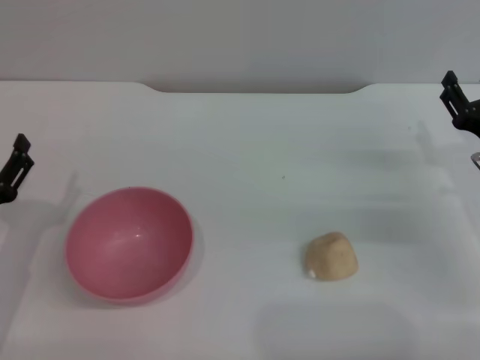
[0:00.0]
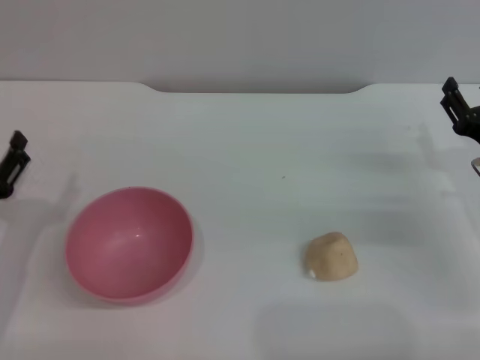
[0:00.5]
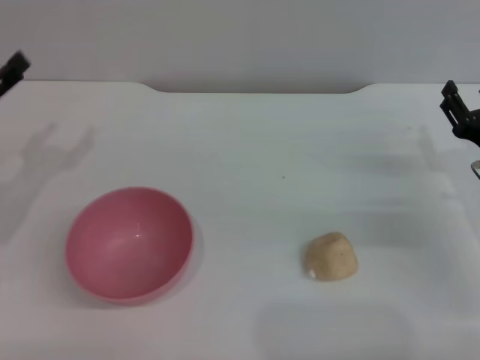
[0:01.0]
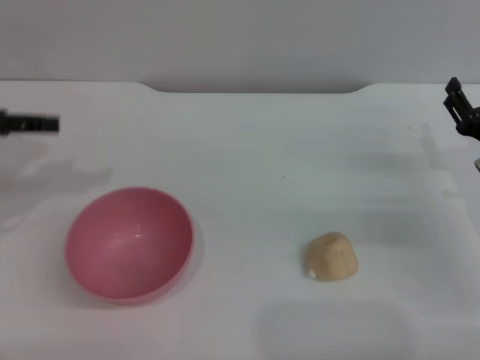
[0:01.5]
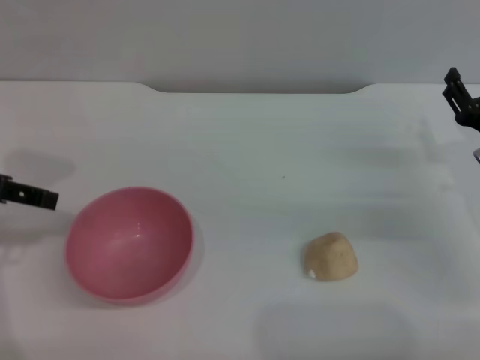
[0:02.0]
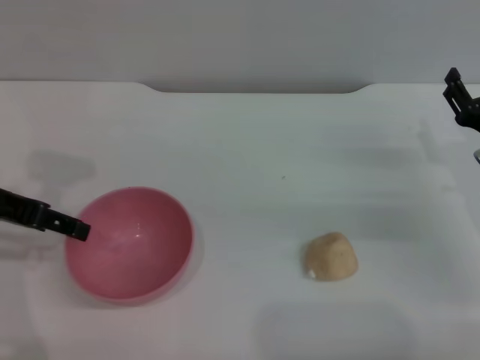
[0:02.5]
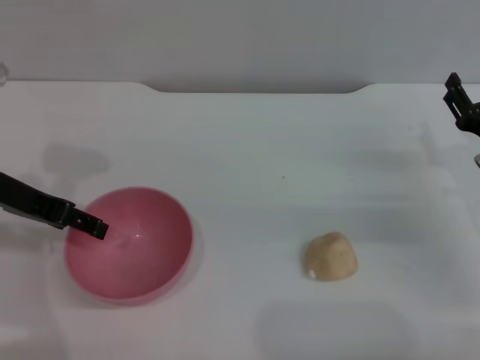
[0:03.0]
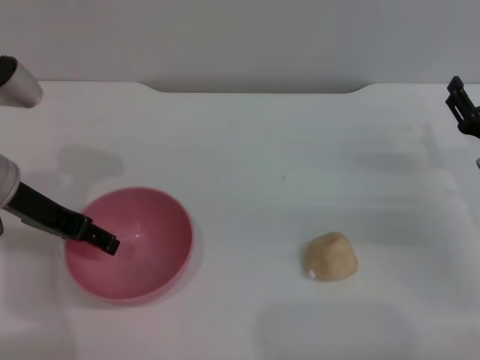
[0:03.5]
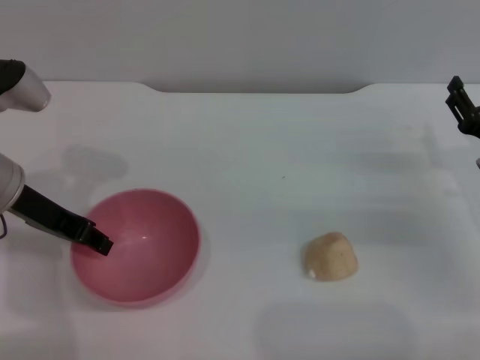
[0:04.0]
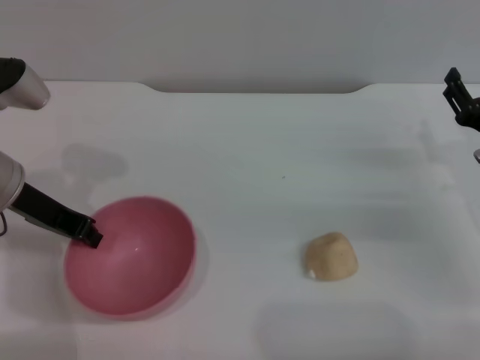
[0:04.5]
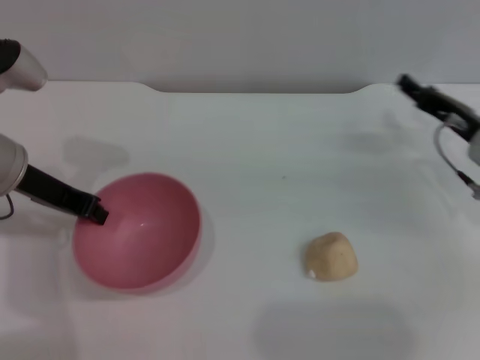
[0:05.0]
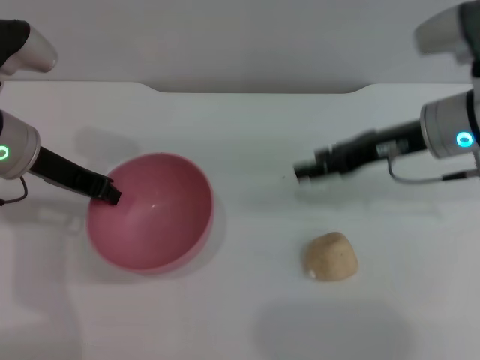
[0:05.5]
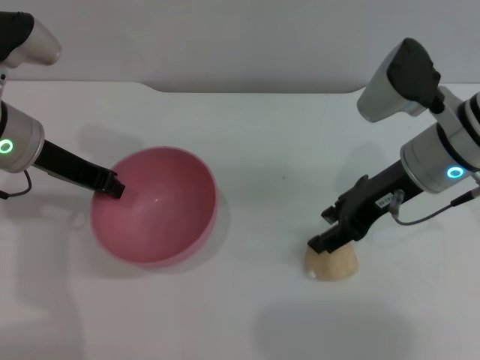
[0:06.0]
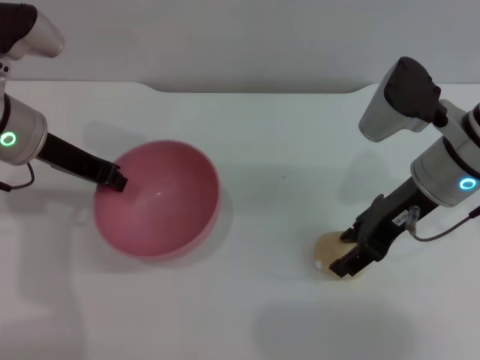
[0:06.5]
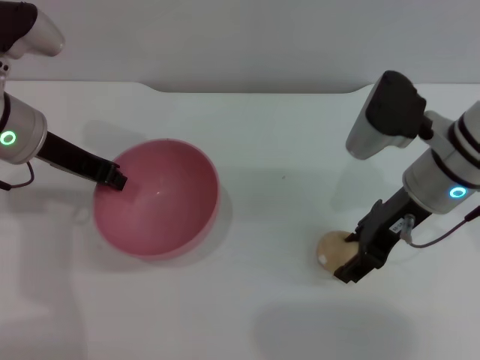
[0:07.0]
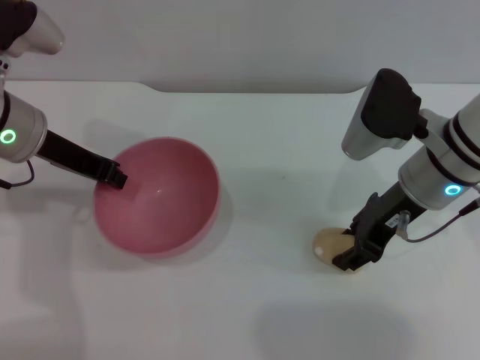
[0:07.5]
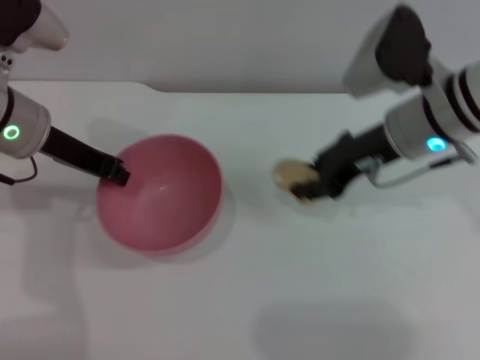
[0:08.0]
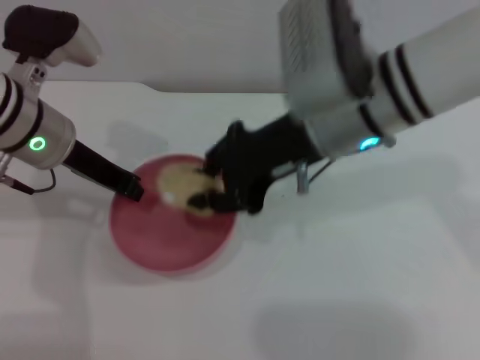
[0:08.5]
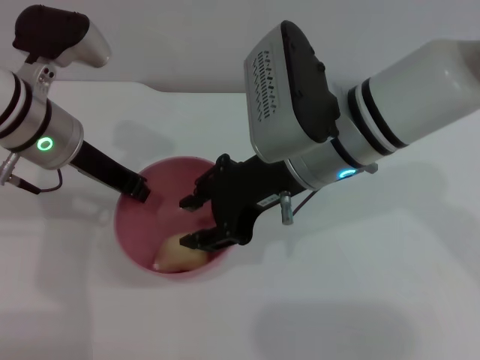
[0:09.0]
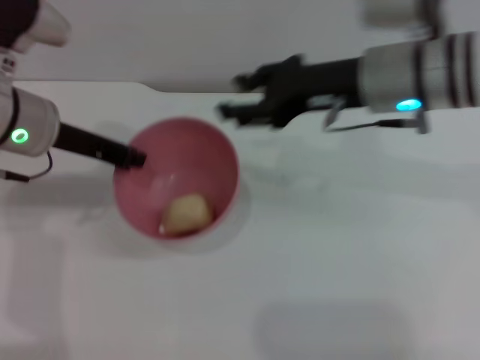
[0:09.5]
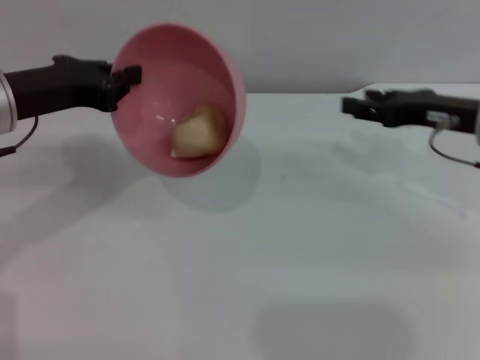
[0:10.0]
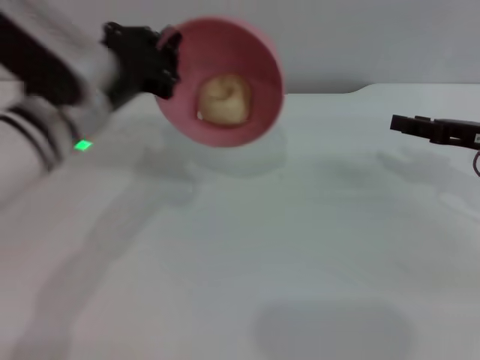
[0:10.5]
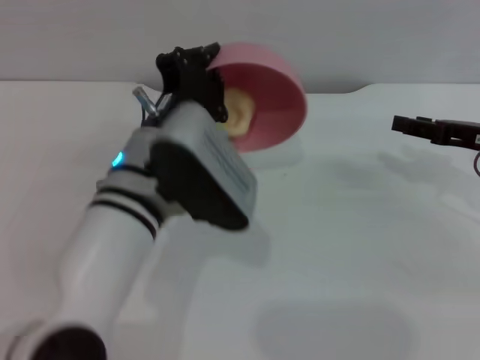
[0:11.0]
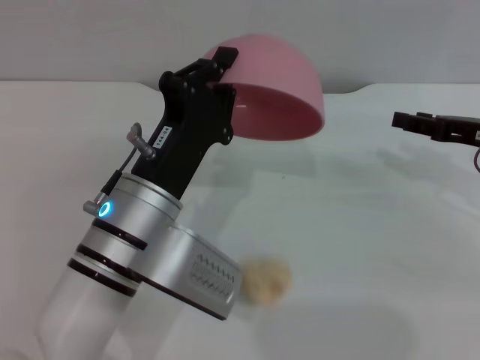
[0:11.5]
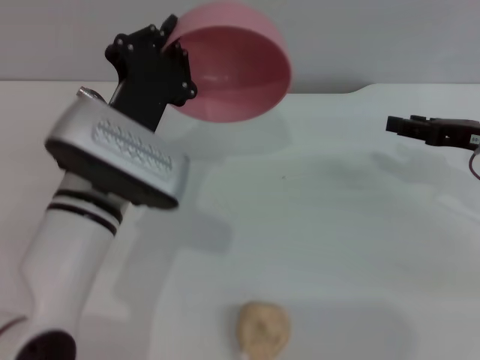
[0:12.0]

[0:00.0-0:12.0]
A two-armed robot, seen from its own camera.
Task of the whole recording: put the egg yolk pastry into the pink bowl and pour it out repeatedly.
Step, 0:00.0 to 0:05.0: Pick up the bowl with the left gripper.
Step, 0:05.5 to 0:07.5: Pick up the egg yolk pastry with the right gripper.
Step, 0:08.0 to 0:09.0: Place the egg yolk pastry into the bowl.
Step, 0:09.5 to 0:11.5: Pour the egg yolk pastry out of bowl.
0:00.0 to 0:02.0: The left gripper moves upward, approximately 20 cm.
0:02.0 to 0:04.0: The left gripper goes about 10 cm downward and to the right, and closes up.
0:04.0 to 0:06.0: The left gripper closes its fingers. Meanwhile the right gripper travels to the left, upward and forward by some 15 cm.
0:06.0 to 0:08.0: The right gripper closes its fingers.
0:08.0 to 0:10.0: The right gripper goes roughly 10 cm to the right, and opens its fingers.
0:10.0 to 0:12.0: The left gripper moves to the right and downward, about 15 cm; the right gripper shifts by approximately 5 cm.

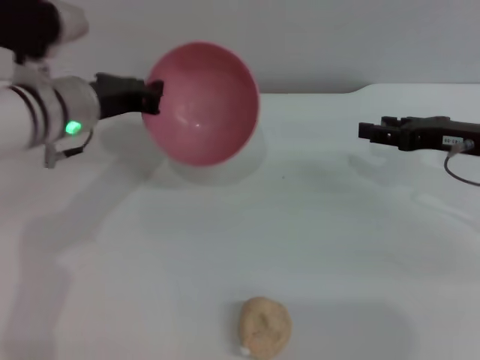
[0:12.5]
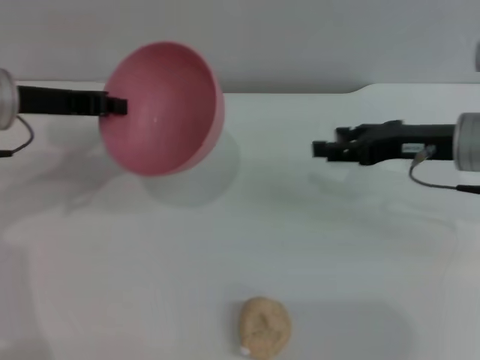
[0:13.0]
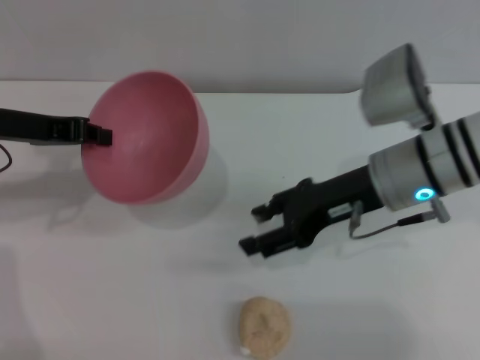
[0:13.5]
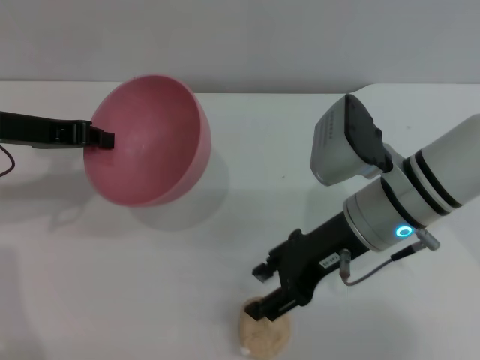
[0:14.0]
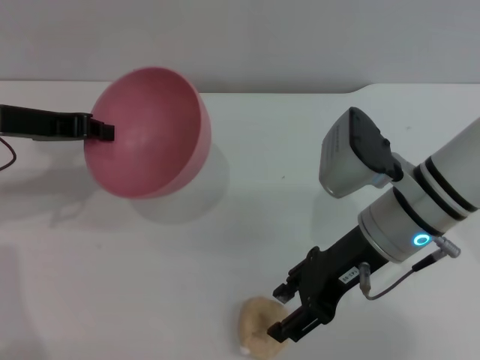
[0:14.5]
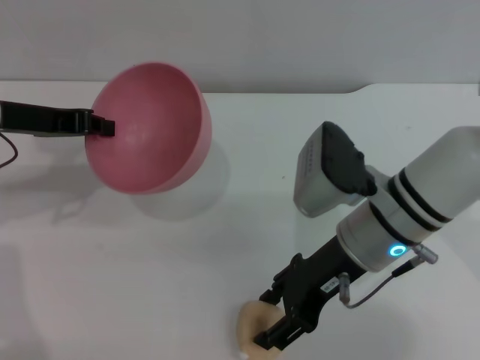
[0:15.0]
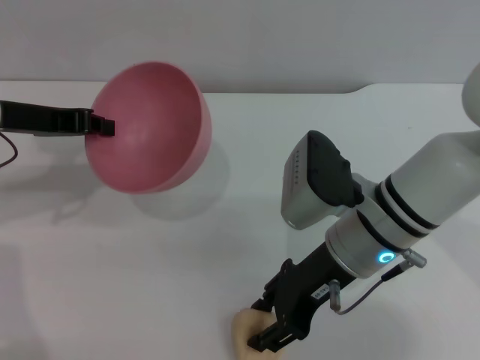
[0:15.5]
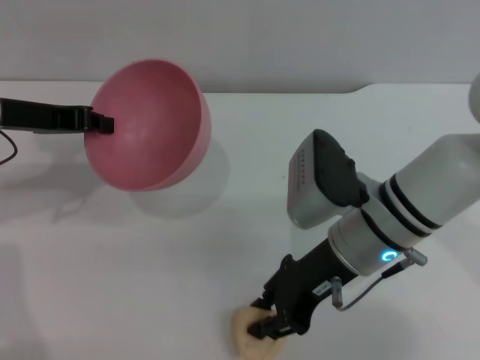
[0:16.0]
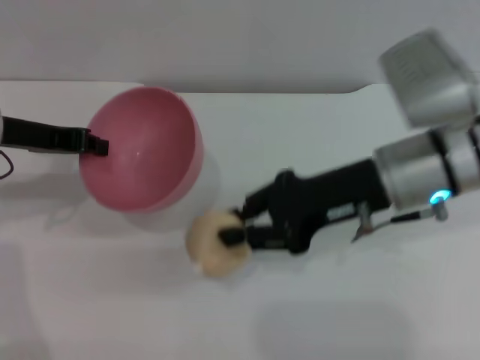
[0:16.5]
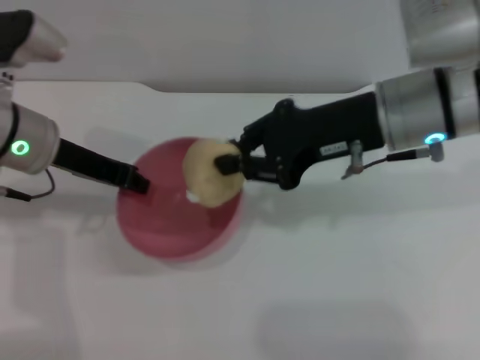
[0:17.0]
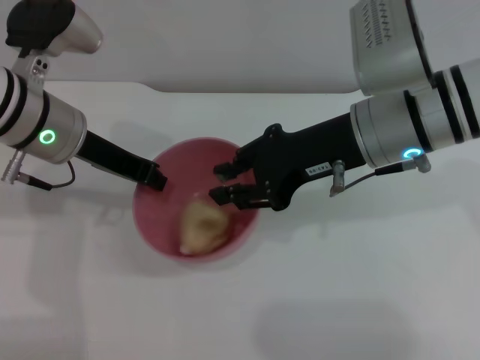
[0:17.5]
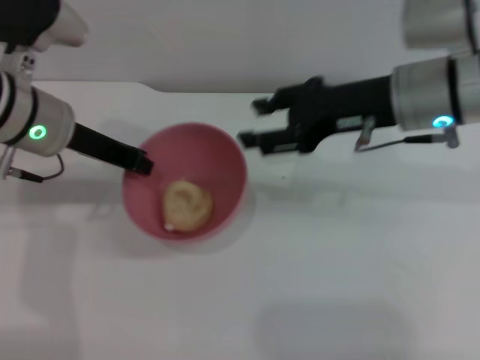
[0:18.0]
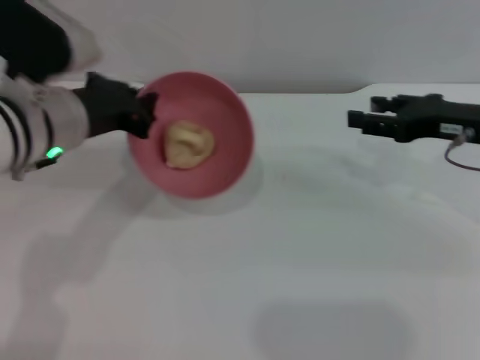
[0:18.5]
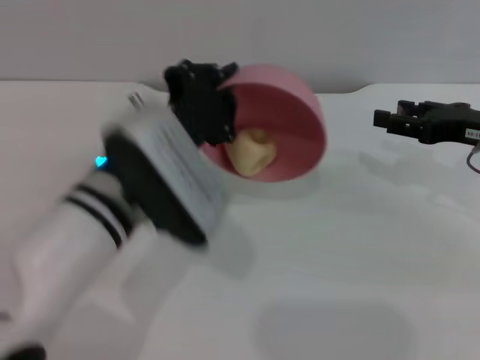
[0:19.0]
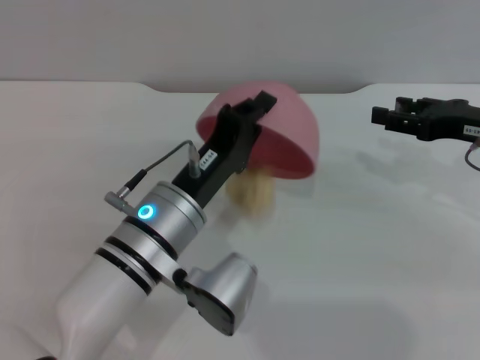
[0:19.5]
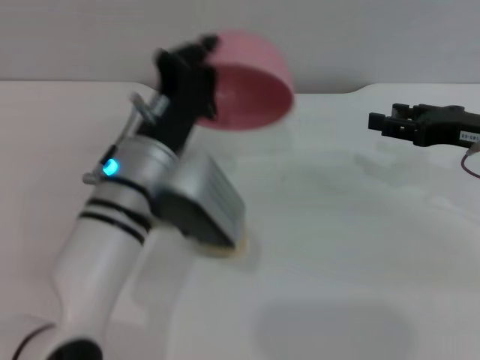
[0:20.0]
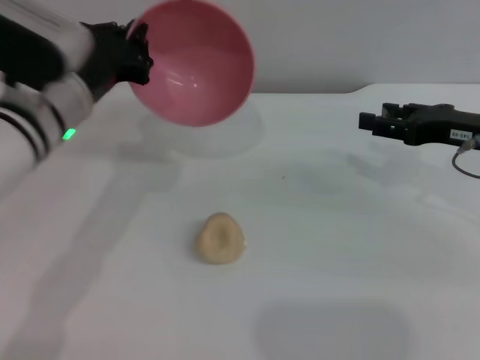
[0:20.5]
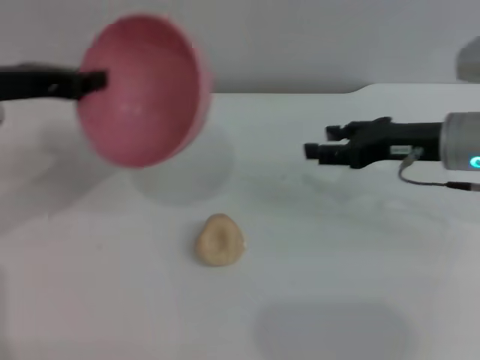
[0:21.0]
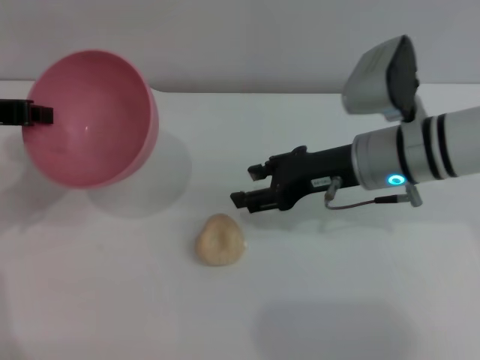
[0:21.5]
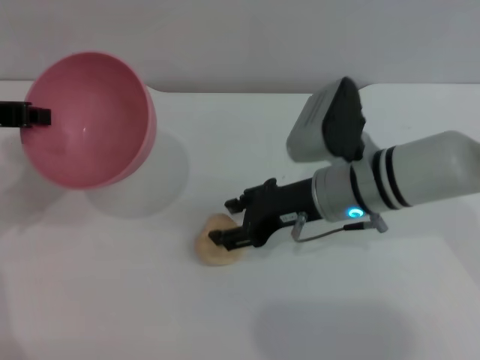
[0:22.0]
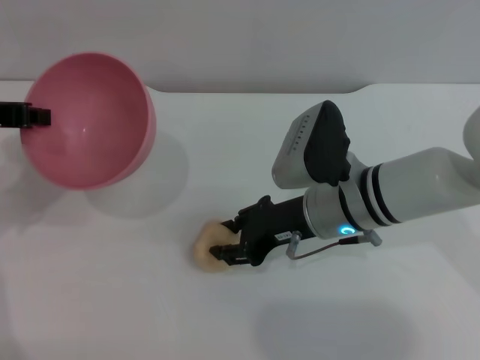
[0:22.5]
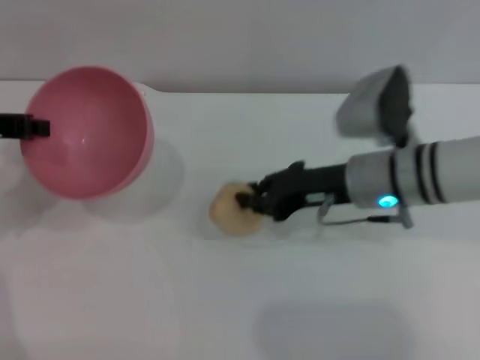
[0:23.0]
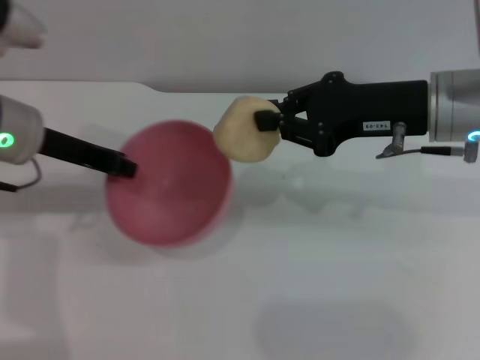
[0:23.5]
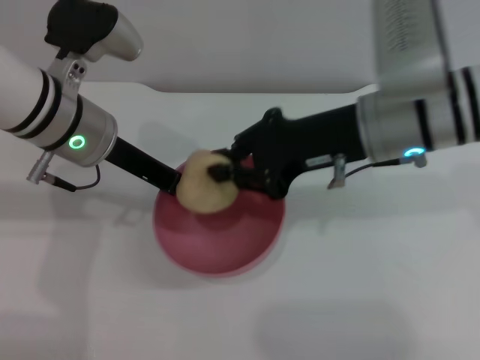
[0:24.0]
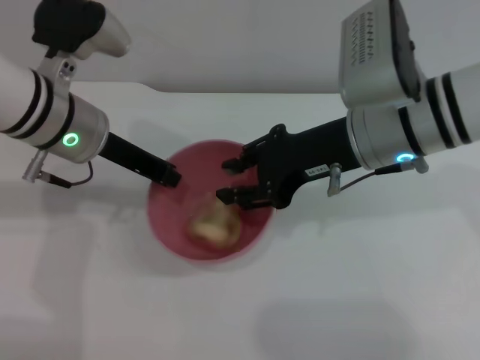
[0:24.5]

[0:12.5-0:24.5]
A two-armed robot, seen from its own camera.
Task of the whole recording: put the egg yolk pastry into the pink bowl and pour it out repeatedly.
Step, 0:12.5 to 0:16.0: Pick up the egg yolk pastry with the right gripper.
Step, 0:16.5 to 0:17.5: Place the egg yolk pastry into the bowl.
Step, 0:18.0 to 0:20.0: Pour the egg yolk pastry out of bowl.
Step, 0:20.5 to 0:23.0: Pick up the egg yolk pastry with the right gripper.
0:12.5 to 0:14.5: The right gripper moves to the left, about 15 cm, while the left gripper travels to the left by roughly 10 cm.
0:14.5 to 0:16.5: The right gripper closes up.
0:16.5 to 0:18.5: Both grippers travel together to the right, about 10 cm. The right gripper opens.
0:18.5 to 0:20.5: The left gripper goes to the right and returns, about 10 cm each way.
0:20.5 to 0:22.5: Both grippers move to the left, approximately 15 cm.
0:22.5 to 0:24.5: The left gripper is displaced to the right by about 15 cm. Meanwhile the right gripper goes about 10 cm upward, and closes.

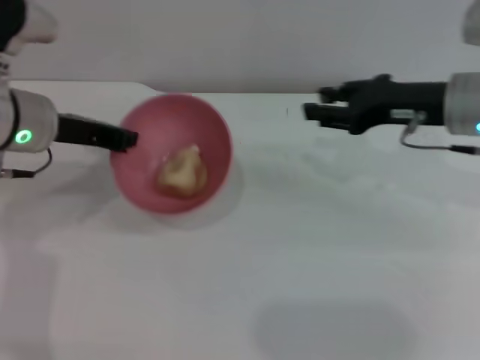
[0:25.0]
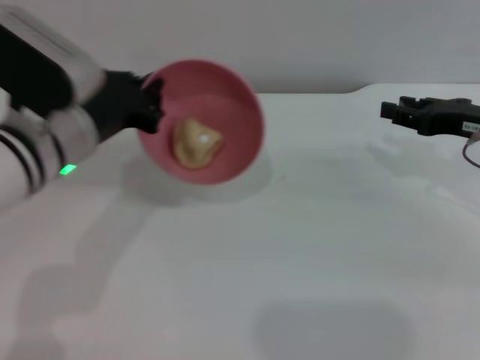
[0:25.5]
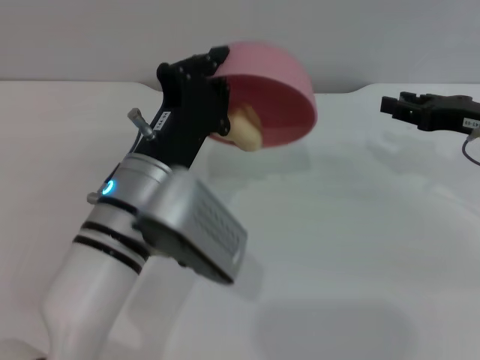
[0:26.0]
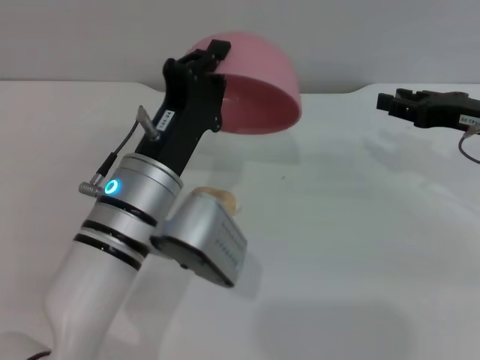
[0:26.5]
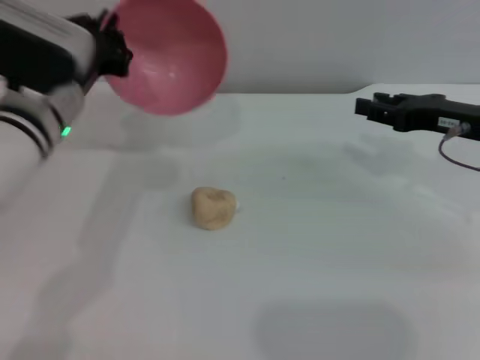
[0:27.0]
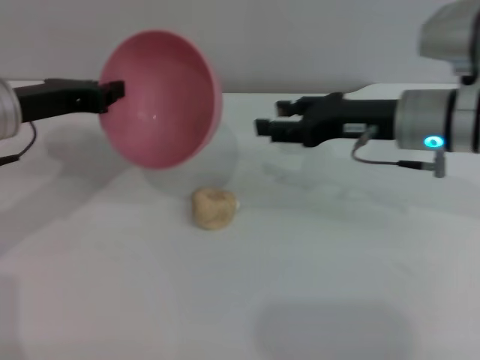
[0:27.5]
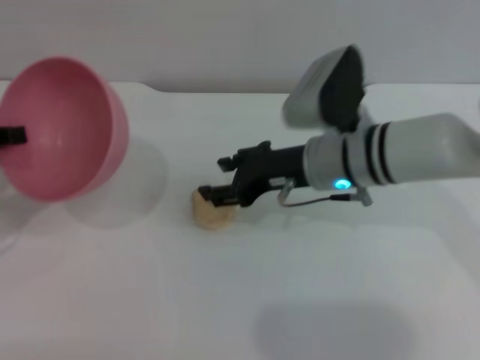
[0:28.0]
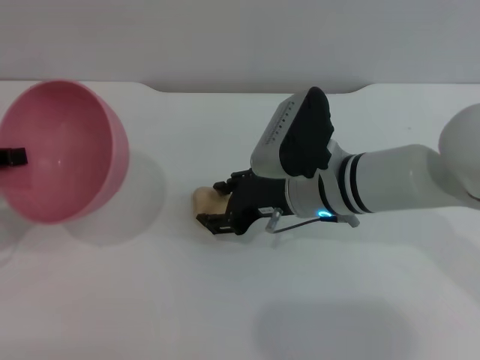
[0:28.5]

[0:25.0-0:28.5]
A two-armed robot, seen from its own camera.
Task of the whole recording: put the egg yolk pastry into the pink bowl and pour it out repeatedly.
Step, 0:25.0 to 0:26.0: Pour the egg yolk pastry out of bowl.
0:25.0 to 0:27.0: The right gripper goes approximately 5 cm to the right.
0:27.0 to 0:28.5: The two grippers go some 20 cm to the left.
